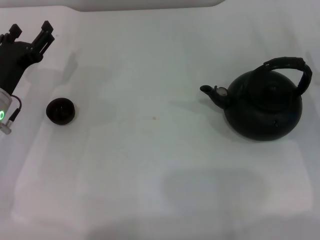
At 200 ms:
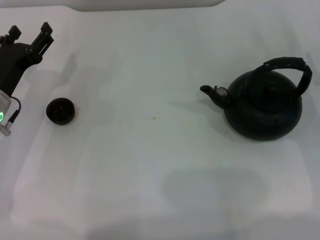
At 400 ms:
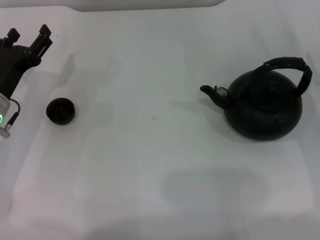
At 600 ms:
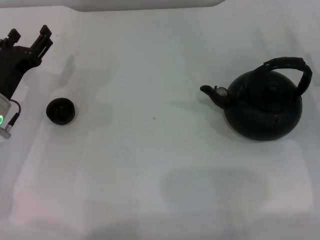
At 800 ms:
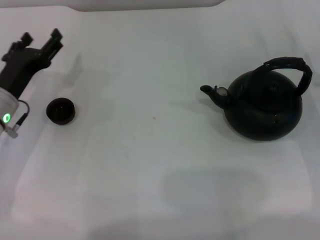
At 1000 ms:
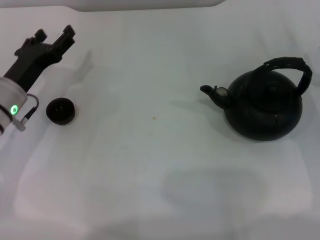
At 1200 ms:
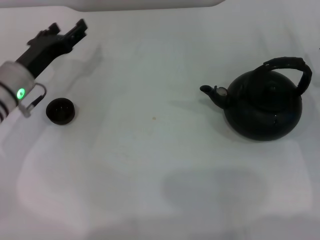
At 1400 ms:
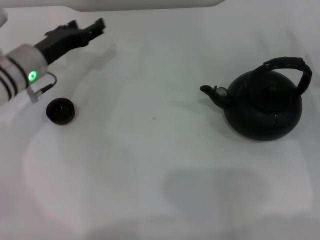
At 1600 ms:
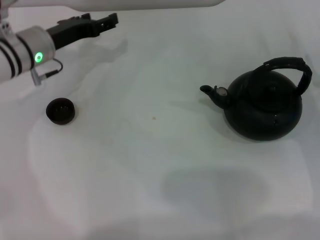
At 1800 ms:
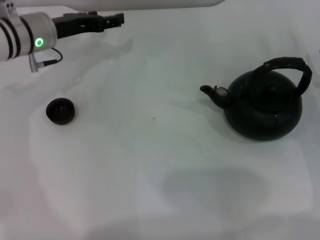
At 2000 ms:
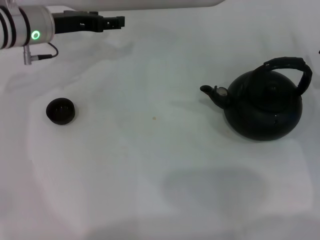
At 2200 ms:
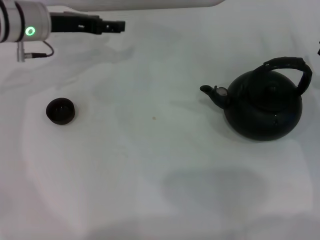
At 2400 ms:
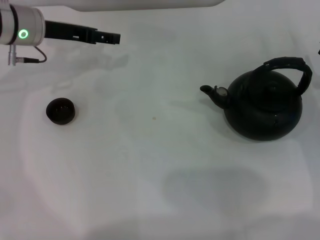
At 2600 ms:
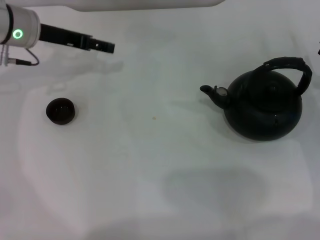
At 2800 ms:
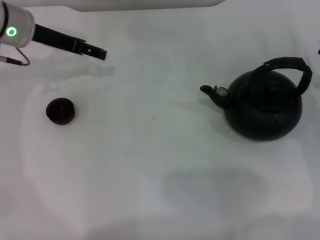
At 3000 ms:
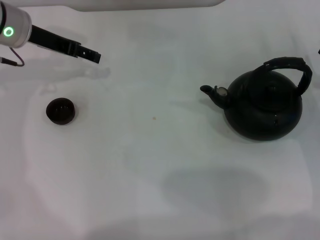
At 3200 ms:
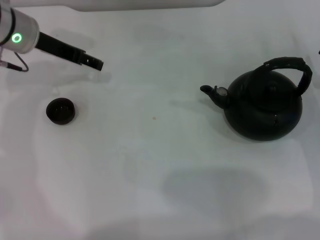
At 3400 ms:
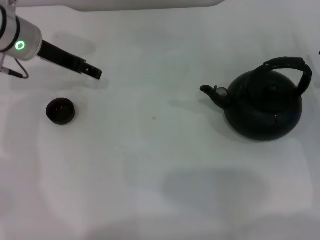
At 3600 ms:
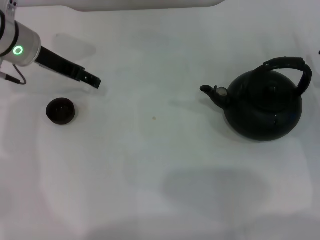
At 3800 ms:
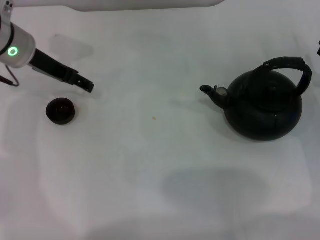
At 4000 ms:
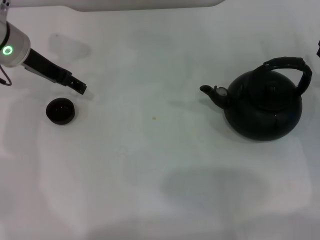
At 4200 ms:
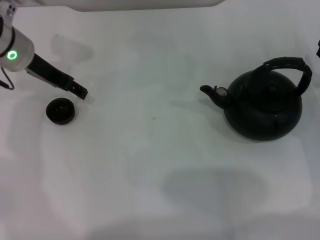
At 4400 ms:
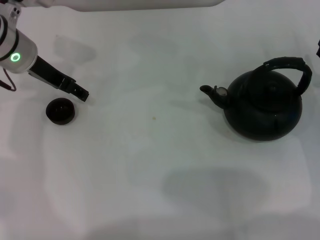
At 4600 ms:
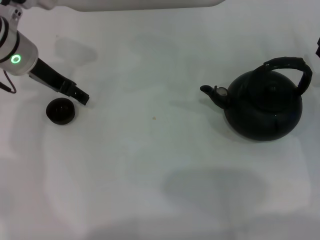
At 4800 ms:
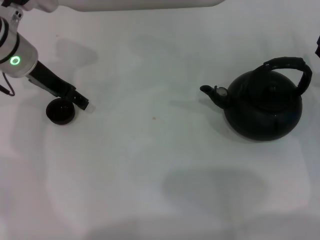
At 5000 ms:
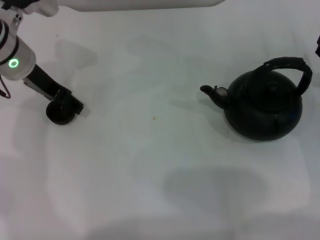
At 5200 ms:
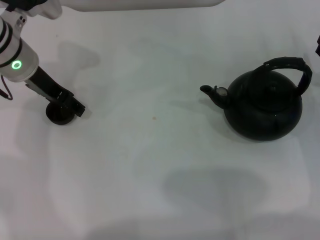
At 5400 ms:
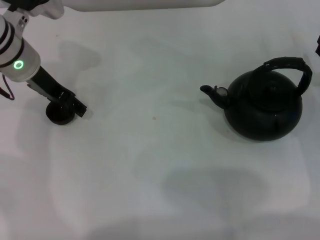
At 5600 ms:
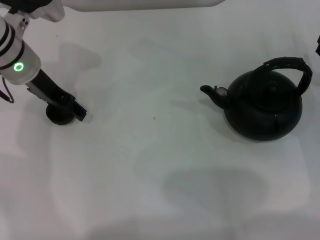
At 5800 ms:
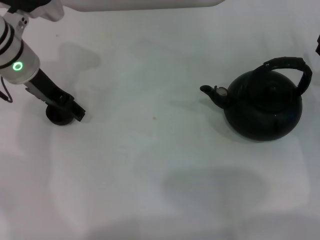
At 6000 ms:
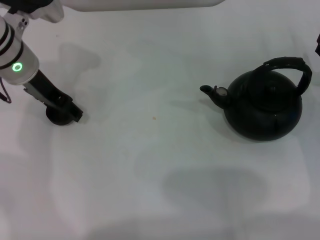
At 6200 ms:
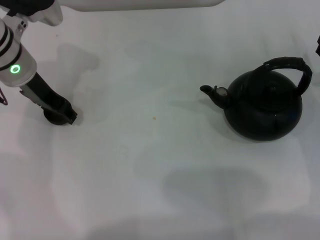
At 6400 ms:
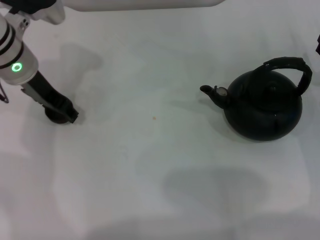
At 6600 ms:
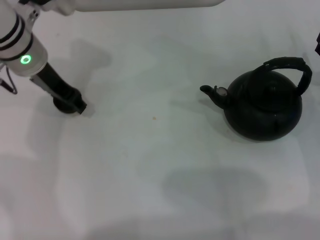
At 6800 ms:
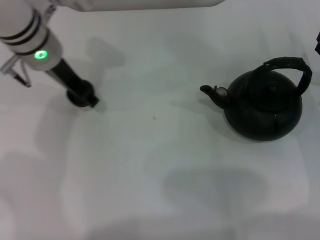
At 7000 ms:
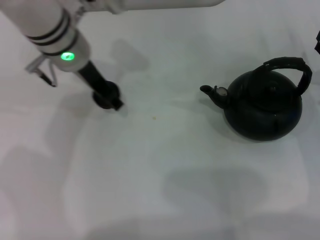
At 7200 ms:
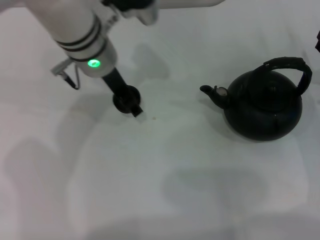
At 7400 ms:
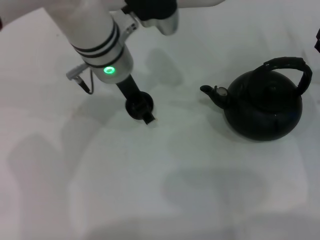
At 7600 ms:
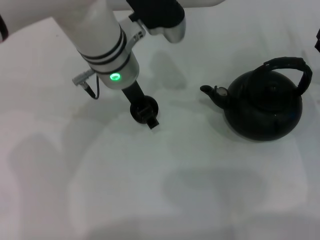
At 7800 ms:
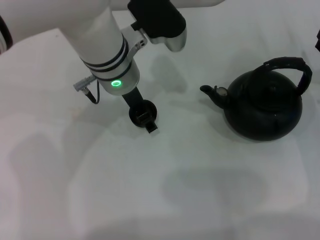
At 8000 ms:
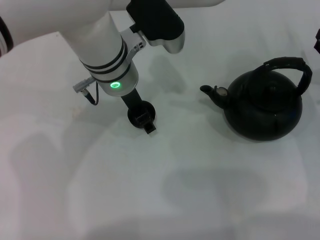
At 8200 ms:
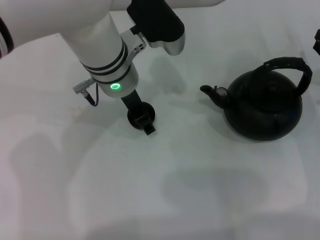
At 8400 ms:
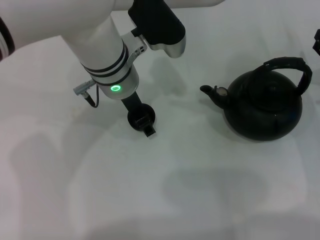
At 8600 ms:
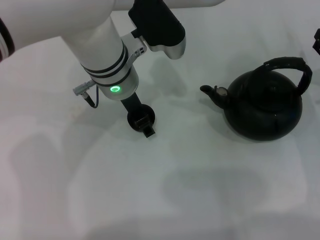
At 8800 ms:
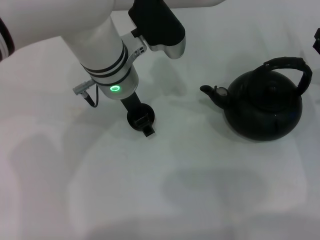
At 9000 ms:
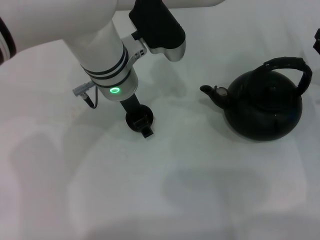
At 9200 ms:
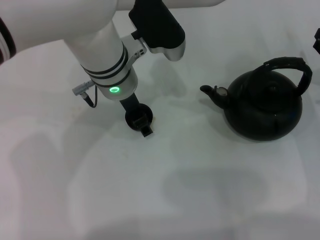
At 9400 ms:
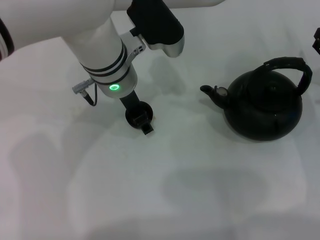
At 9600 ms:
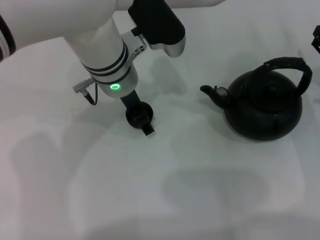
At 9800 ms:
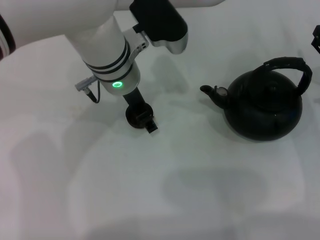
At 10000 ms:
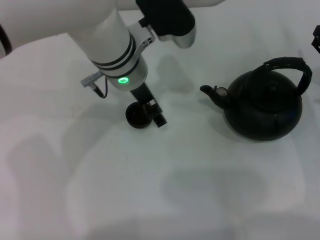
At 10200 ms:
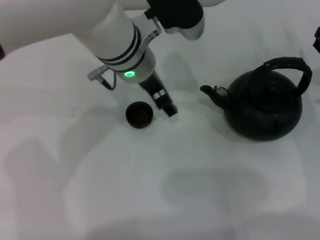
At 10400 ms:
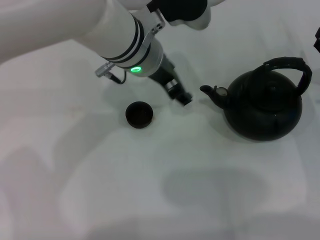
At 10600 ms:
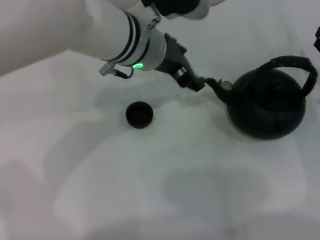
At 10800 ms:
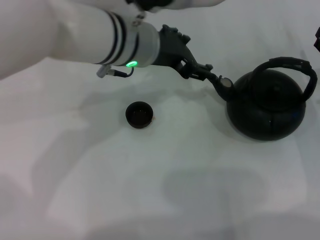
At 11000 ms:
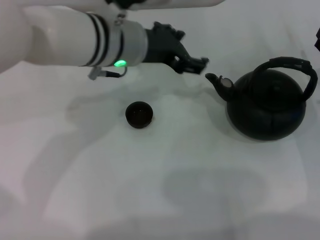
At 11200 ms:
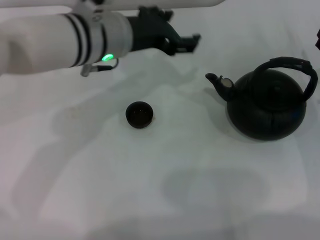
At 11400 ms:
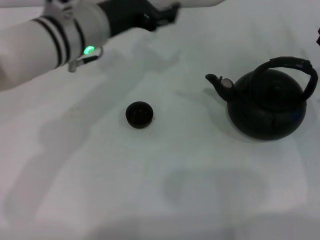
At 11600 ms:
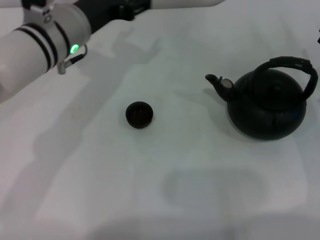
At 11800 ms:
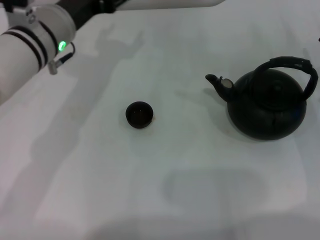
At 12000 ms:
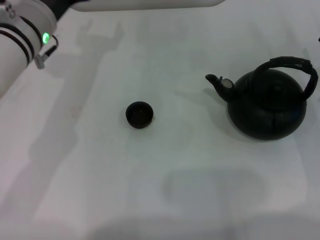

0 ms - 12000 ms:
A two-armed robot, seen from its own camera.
Task of the whole recording: Grasp the handle of the teapot with one hand and pour tea into the teacup.
Step, 0 ms - 6400 ms: Pick up the teacup with the left gripper.
Step, 6600 ms - 10200 ms: Place the teacup in the center of view with the left gripper.
0 ms - 1600 ms: The left gripper heads forward, covering roughly 10 cm.
1600 ms - 3000 ms: The left gripper heads upward, covering some 5 cm.
3000 ms - 4400 ms: The grippers stay close to where they were, moving slightly.
4400 ms - 6000 ms: There are only small adjustments of the grippers.
6000 ms - 7600 ms: The left gripper goes some 15 cm to the right, and closes its fingers.
7600 ms - 9000 ms: The grippers stay close to where they were, moving slightly.
9000 ms - 10400 ms: The left gripper opens.
10400 ms - 12000 ms: The left gripper heads to the left, covering roughly 15 cm.

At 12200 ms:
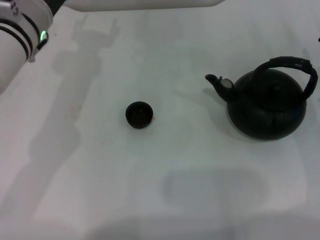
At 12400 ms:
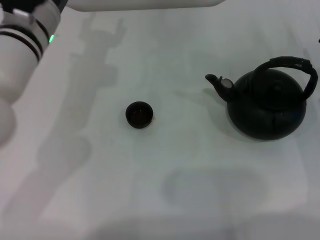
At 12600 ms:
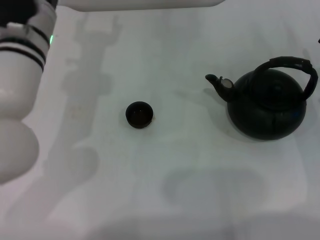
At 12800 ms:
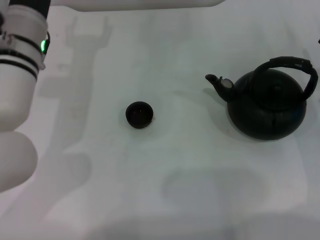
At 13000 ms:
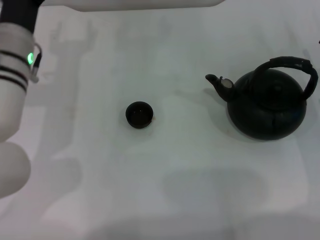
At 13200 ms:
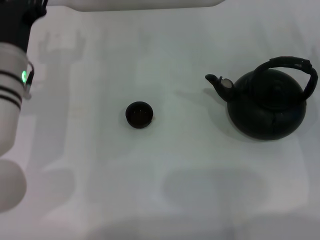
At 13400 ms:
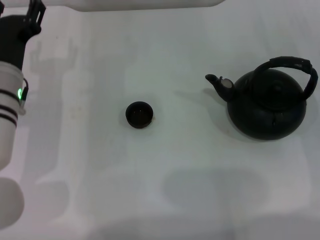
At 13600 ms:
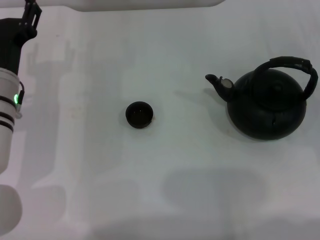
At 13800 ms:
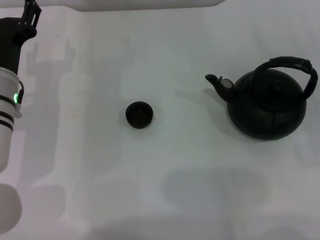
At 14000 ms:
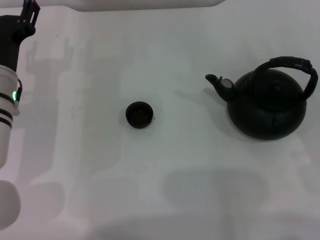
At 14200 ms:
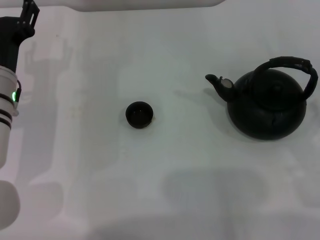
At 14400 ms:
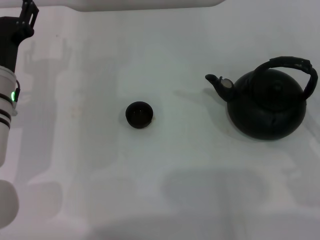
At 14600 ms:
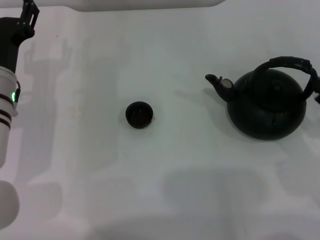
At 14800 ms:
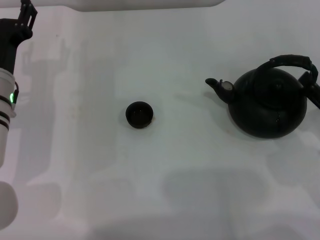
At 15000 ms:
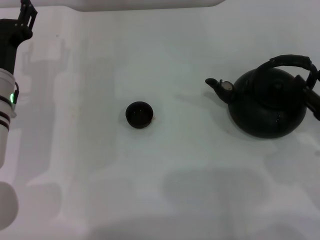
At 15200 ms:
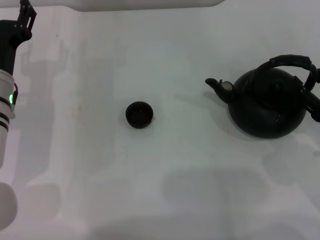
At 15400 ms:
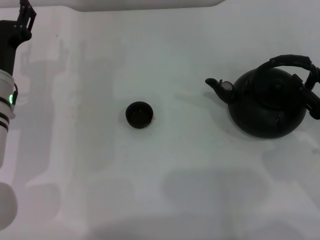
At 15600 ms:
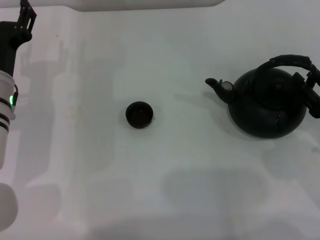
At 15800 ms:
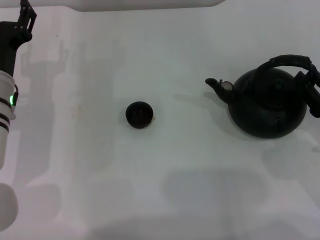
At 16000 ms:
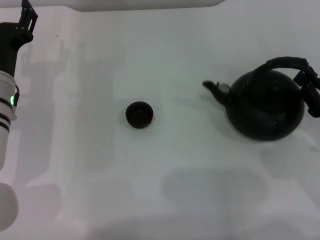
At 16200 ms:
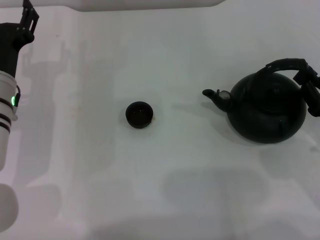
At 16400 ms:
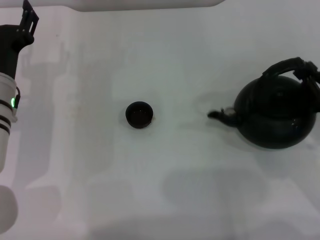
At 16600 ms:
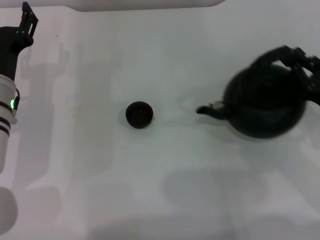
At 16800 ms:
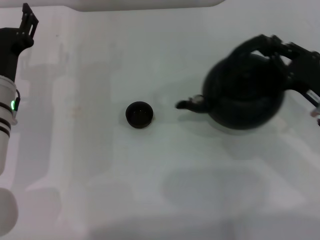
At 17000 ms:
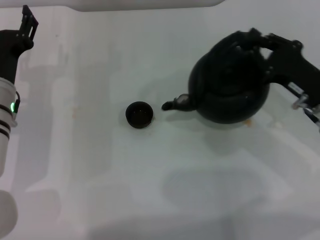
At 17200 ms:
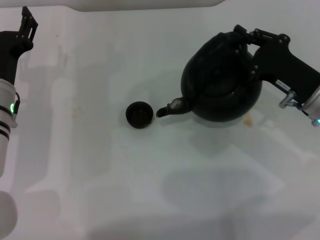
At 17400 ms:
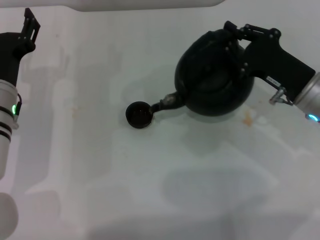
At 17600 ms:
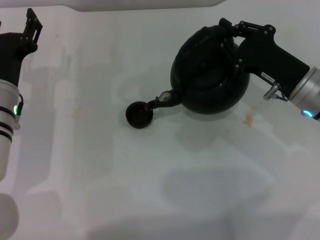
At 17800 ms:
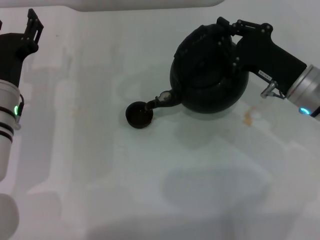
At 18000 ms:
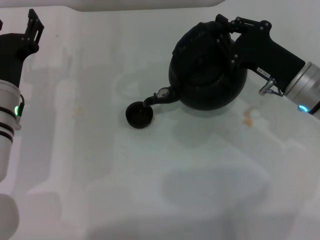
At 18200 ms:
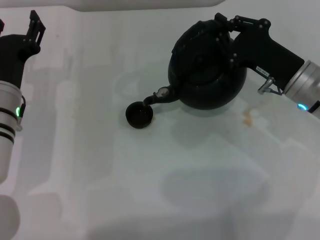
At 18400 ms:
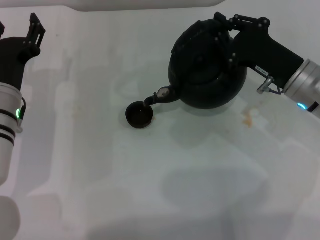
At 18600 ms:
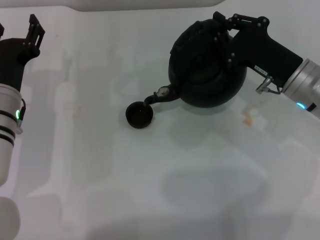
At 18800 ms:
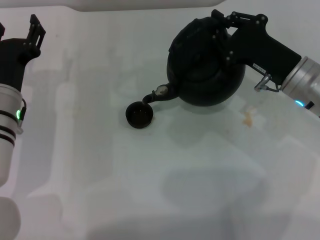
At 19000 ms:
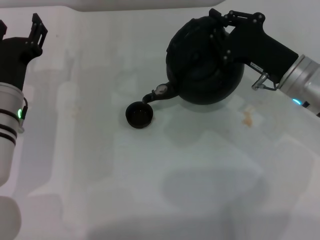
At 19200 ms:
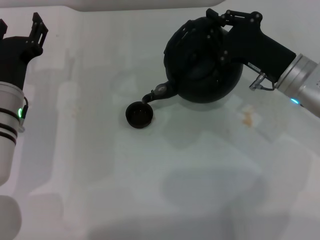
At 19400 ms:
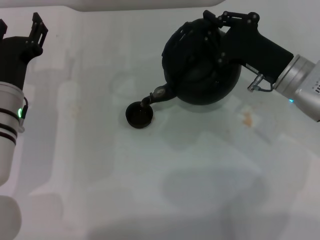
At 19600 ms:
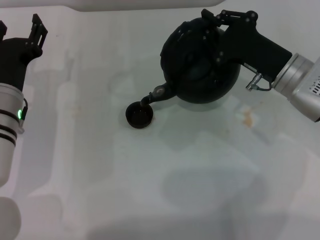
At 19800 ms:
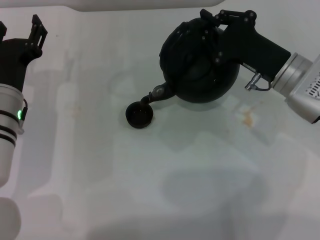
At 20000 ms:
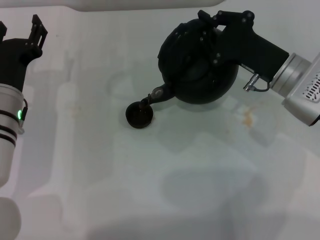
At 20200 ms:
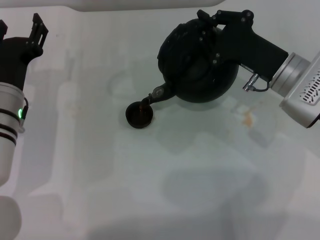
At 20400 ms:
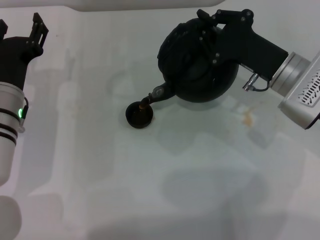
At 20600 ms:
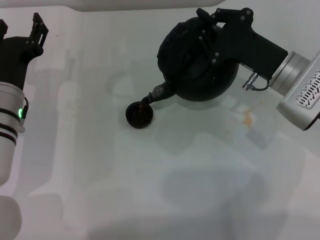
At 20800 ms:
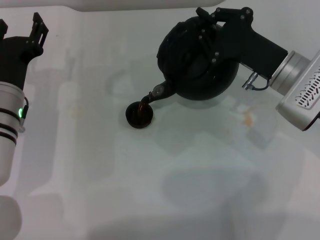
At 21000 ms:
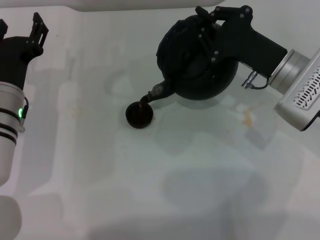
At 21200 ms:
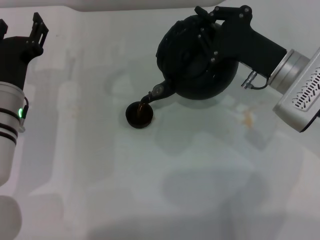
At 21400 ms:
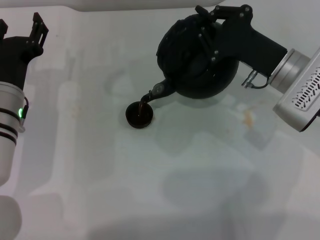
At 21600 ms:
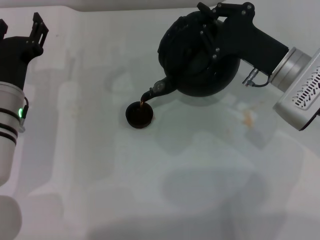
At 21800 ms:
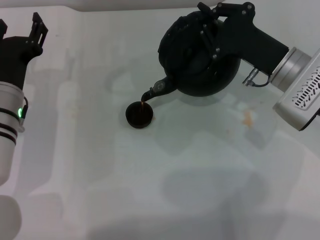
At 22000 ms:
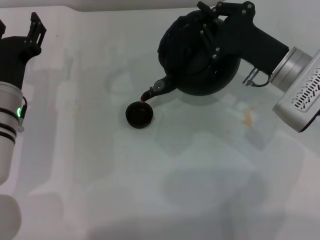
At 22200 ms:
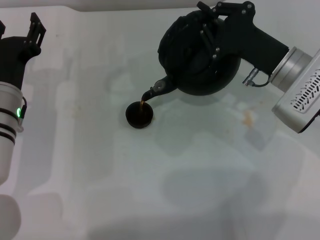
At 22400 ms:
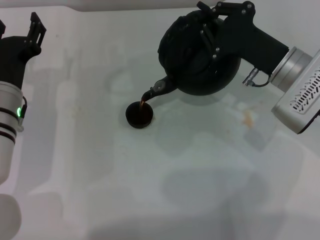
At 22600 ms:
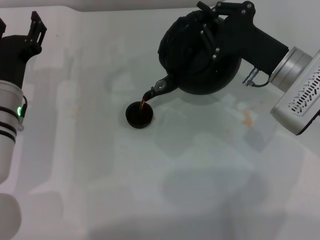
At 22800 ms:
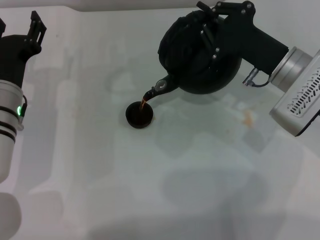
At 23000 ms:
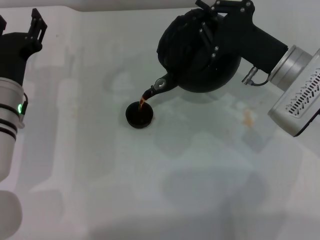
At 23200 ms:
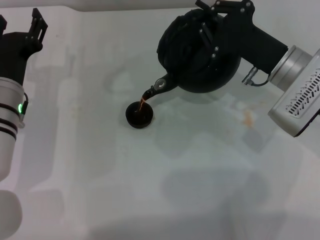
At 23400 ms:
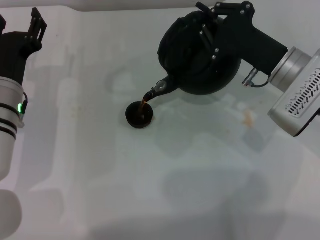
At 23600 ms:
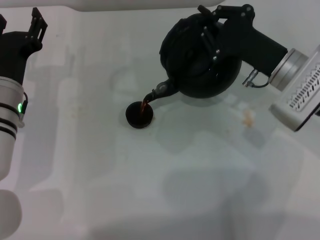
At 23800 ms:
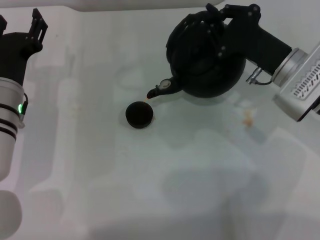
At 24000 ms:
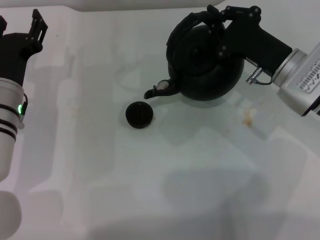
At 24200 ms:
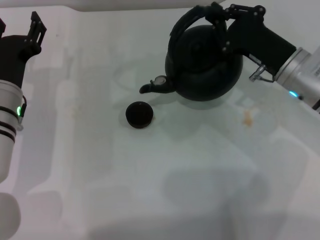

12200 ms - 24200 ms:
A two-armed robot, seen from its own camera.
Task of the whole recording: Grasp the handle of the teapot with one hand and pour tea into the teacup.
Step, 12200 ms - 16800 ms: Pick up the teapot with the right gripper.
12200 ms - 13800 ms: The left gripper travels downward and backward by roughly 10 cm.
13800 ms - 15200 ms: The right gripper moves some 5 cm.
15200 ms - 16600 ms: The right gripper closes up.
16600 ms - 18200 ms: The right gripper moves to the left and forward, some 10 cm.
18200 ms - 19800 ms: The grippers make only small movements.
19800 ms - 22600 ms: The grippers move only a little.
